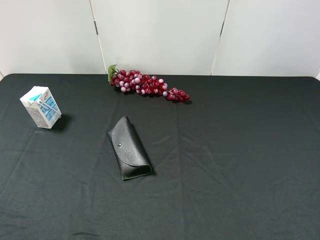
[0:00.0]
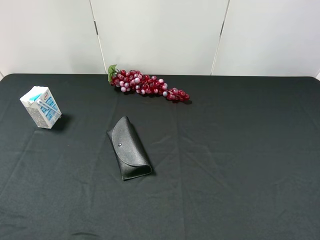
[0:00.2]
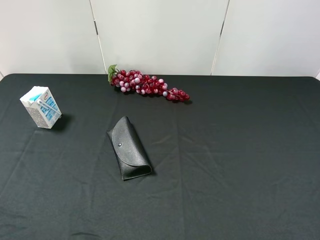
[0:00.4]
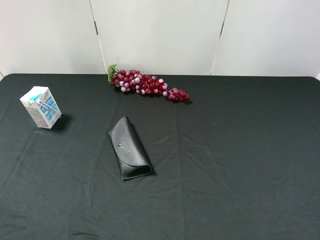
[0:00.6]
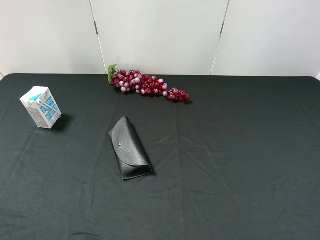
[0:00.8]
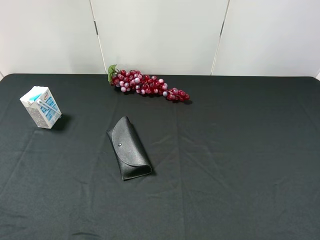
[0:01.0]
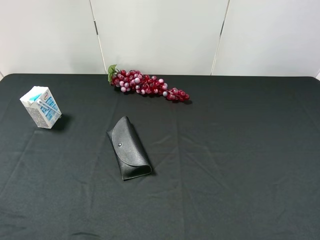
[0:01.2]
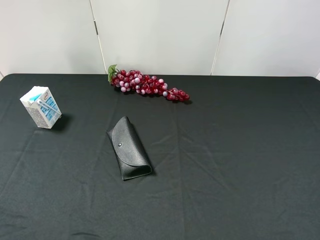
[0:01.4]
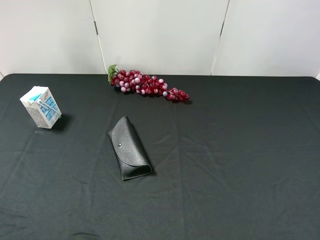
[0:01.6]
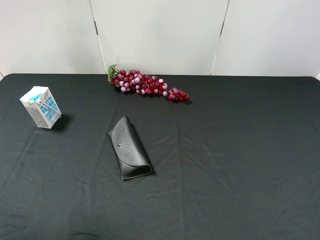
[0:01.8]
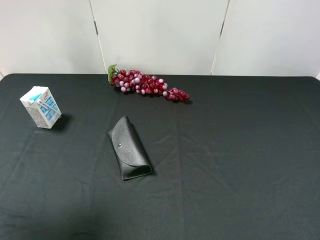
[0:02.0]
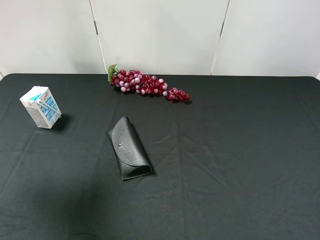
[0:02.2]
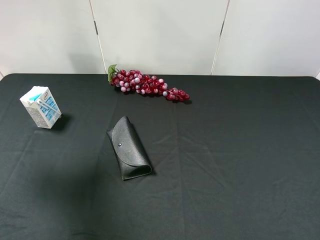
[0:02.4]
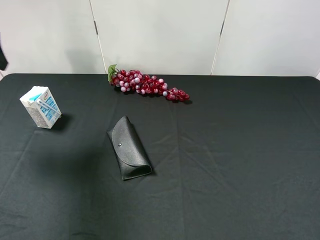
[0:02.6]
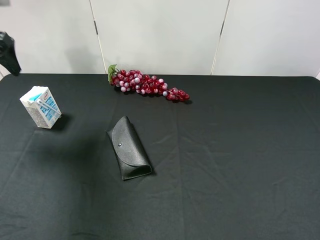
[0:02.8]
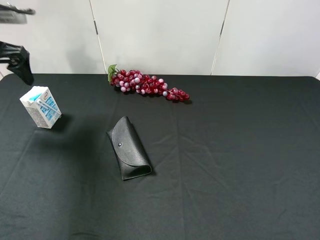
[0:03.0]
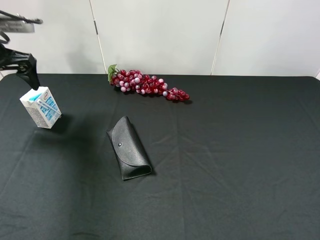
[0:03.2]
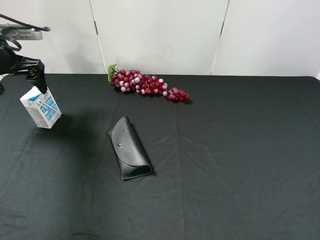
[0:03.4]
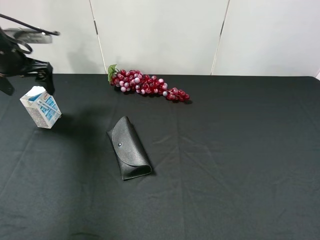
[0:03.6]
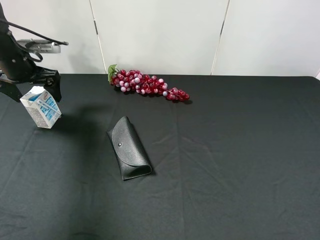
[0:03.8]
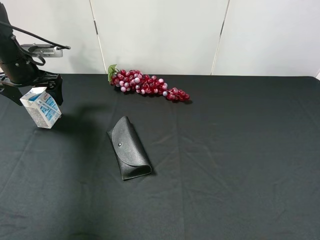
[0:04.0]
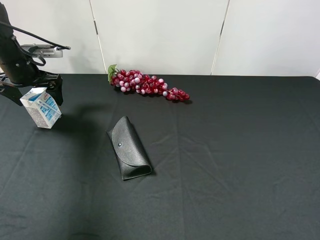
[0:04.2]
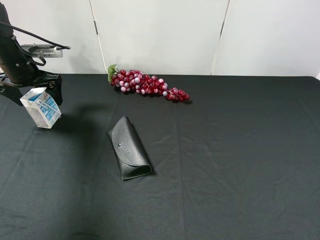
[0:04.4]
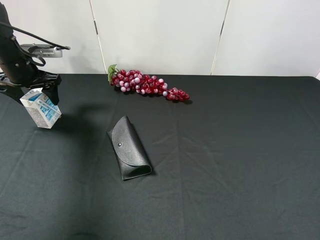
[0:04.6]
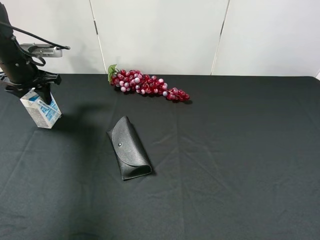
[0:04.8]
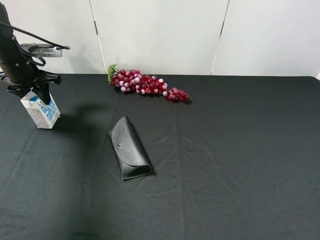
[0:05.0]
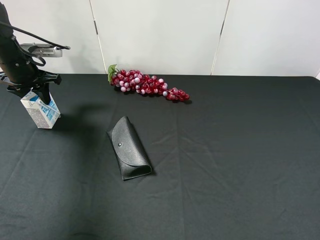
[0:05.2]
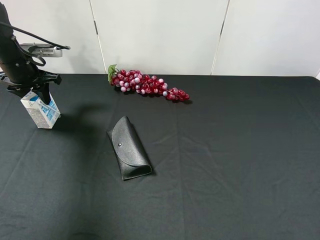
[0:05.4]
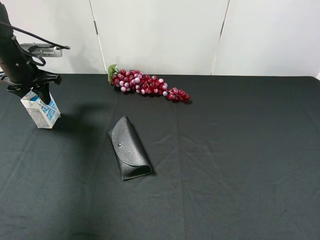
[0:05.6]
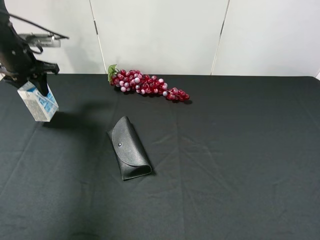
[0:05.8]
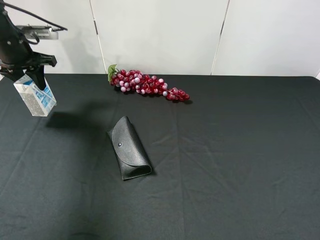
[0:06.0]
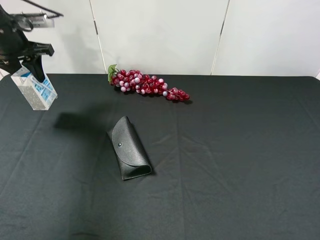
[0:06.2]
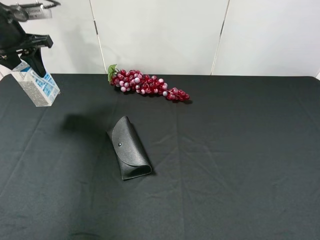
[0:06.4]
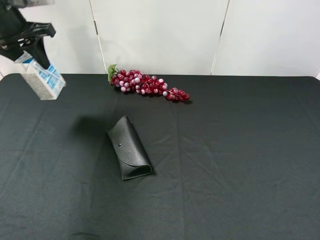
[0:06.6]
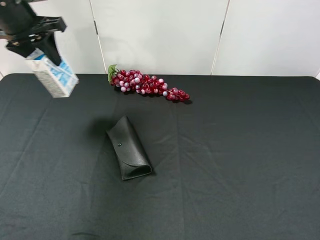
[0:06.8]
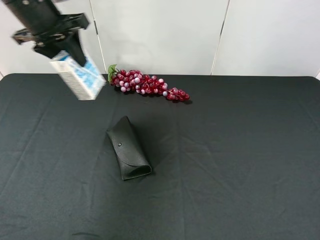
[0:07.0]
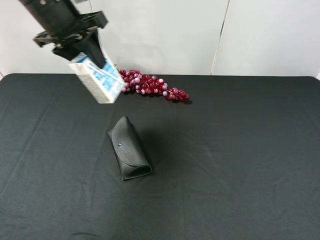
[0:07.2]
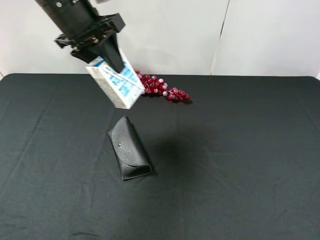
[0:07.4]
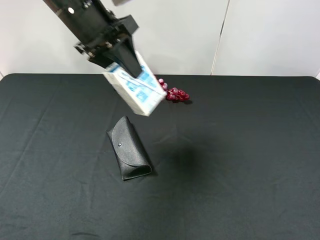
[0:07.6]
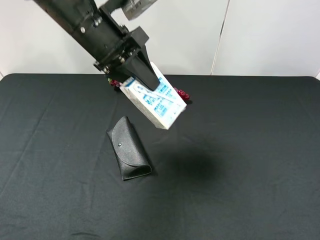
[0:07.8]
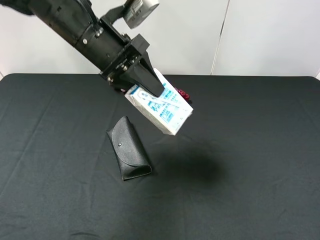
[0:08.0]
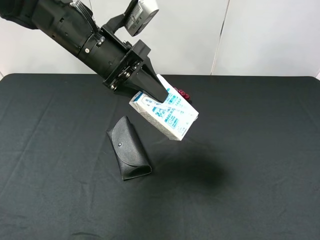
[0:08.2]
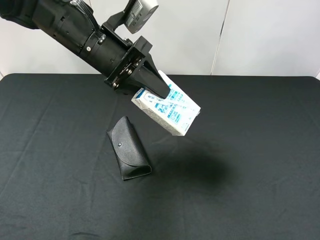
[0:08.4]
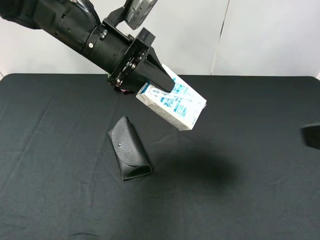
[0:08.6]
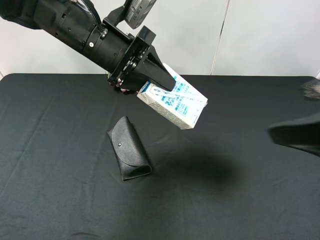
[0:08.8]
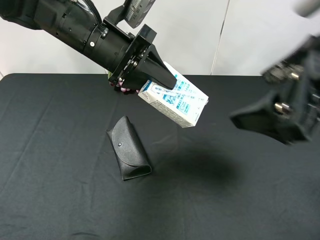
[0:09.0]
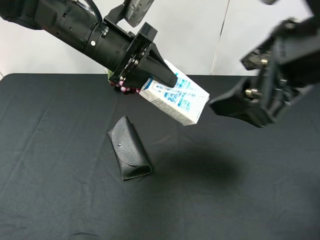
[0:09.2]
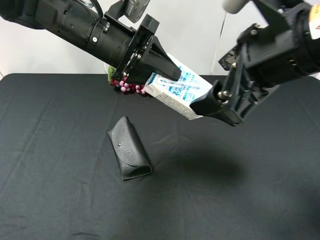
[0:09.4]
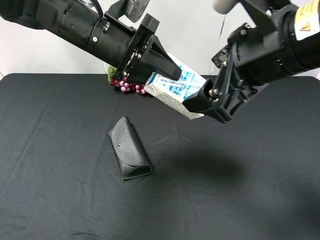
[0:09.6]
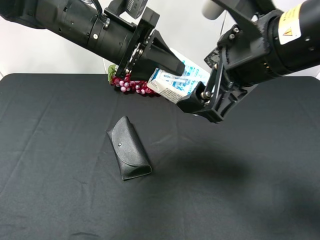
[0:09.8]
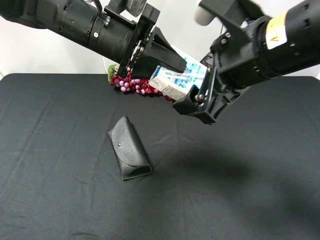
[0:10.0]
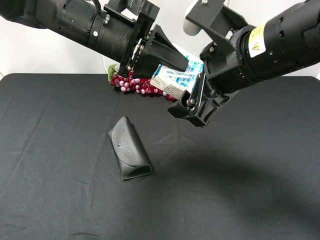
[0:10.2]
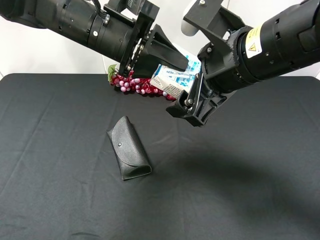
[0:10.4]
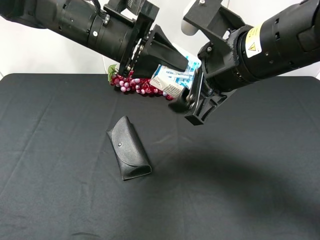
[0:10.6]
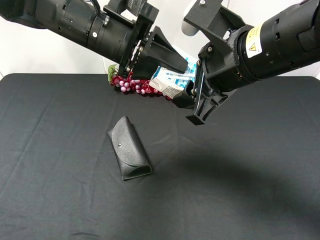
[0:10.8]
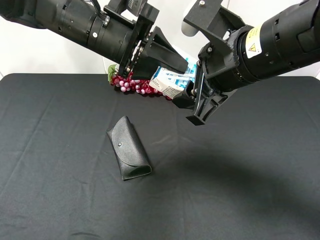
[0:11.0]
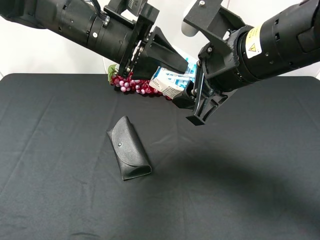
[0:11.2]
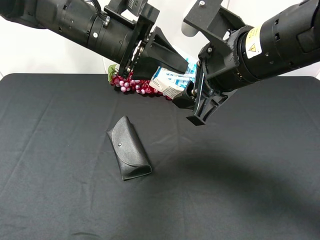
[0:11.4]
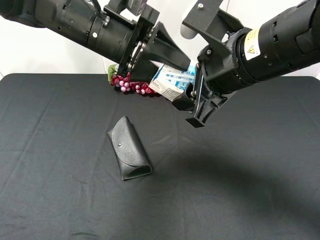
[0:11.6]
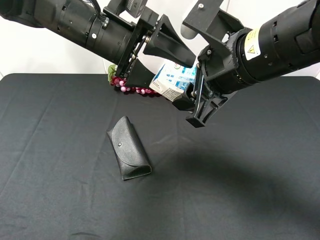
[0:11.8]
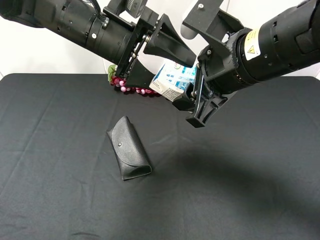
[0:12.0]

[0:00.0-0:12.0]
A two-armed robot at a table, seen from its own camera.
Task of the whole recording: use the left gripper to pick up the item and transfer it from the left gripper to the right gripper.
0:01.6 to 0:03.0: The left gripper heads forward, covering some 30 cm.
0:03.0 to 0:04.4: The left gripper goes about 10 cm downward and forward.
0:04.4 to 0:06.0: The left gripper closes up.
0:06.0 to 0:07.6: The left gripper shifts roughly 20 cm to the right and backward.
0:07.6 to 0:09.0: The right gripper moves forward and to the left, approximately 20 cm. The left gripper changes place by some 5 cm.
0:09.0 to 0:10.4: The right gripper shifts approximately 10 cm to the left and forward.
0:10.4 to 0:12.0: The right gripper closes. The left gripper opens its fingers.

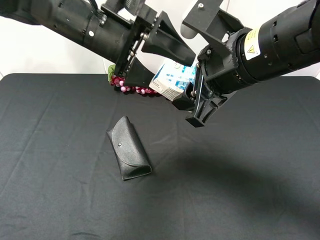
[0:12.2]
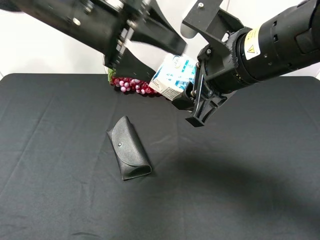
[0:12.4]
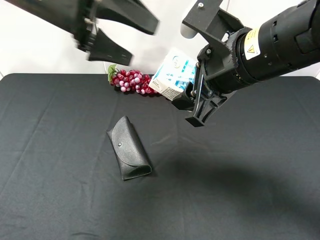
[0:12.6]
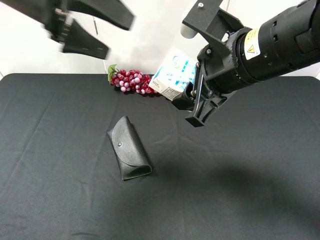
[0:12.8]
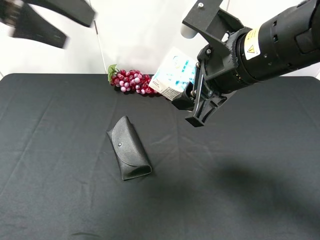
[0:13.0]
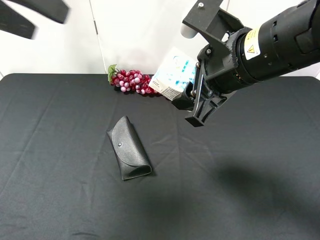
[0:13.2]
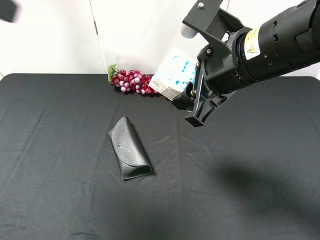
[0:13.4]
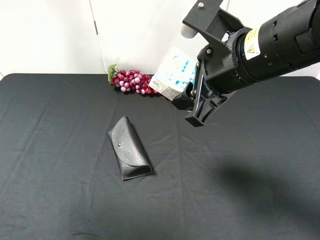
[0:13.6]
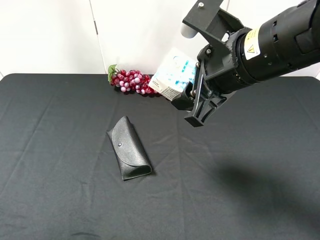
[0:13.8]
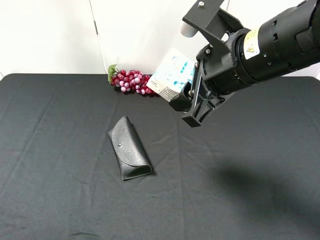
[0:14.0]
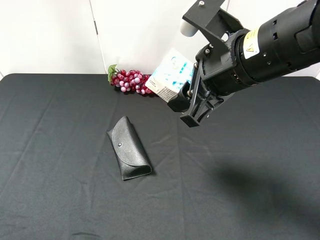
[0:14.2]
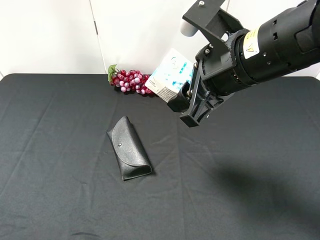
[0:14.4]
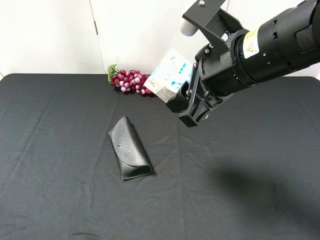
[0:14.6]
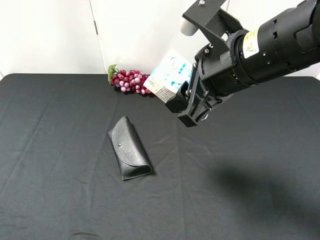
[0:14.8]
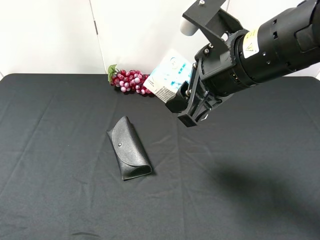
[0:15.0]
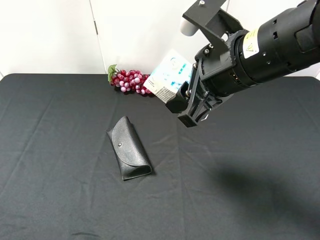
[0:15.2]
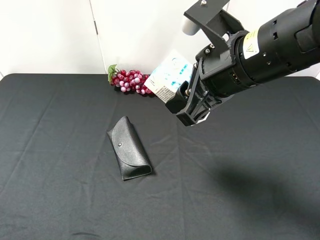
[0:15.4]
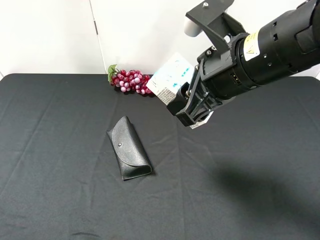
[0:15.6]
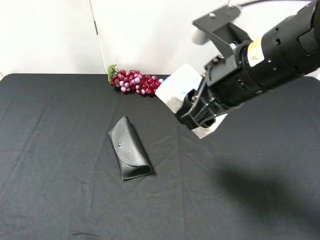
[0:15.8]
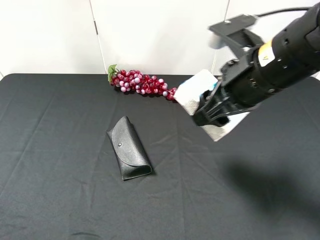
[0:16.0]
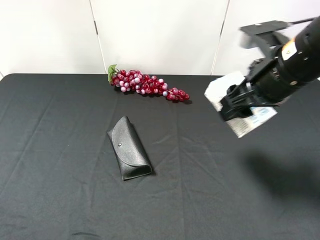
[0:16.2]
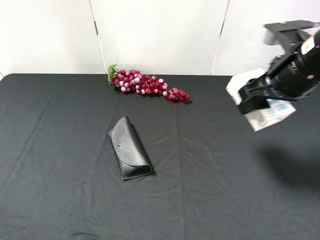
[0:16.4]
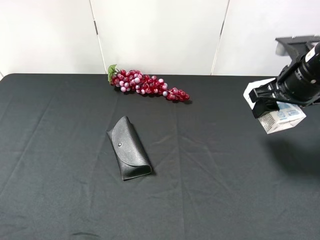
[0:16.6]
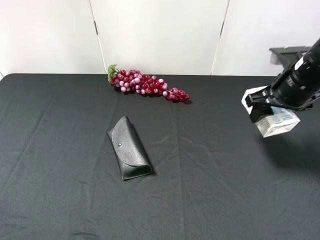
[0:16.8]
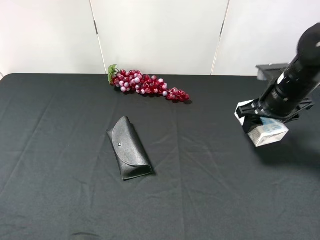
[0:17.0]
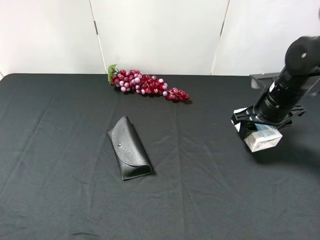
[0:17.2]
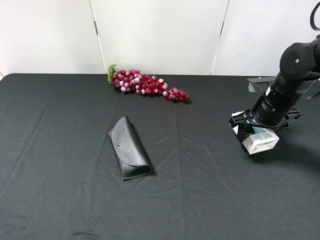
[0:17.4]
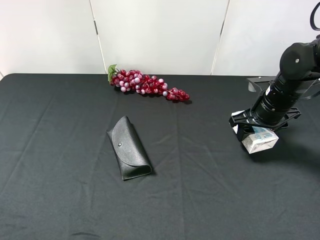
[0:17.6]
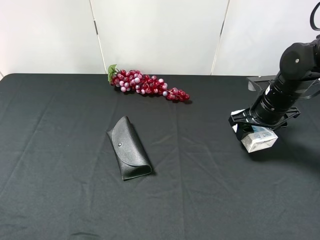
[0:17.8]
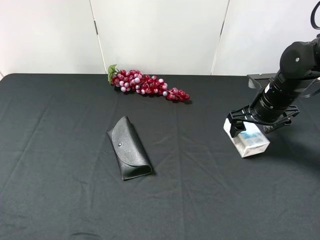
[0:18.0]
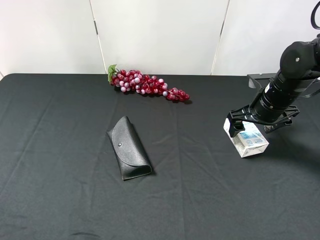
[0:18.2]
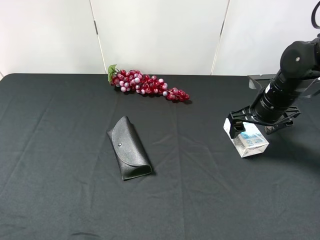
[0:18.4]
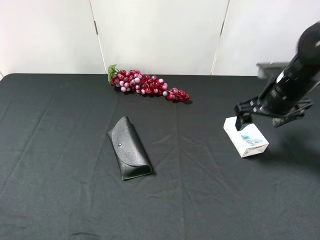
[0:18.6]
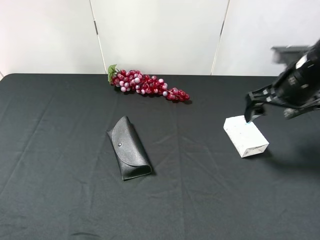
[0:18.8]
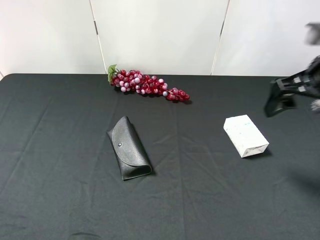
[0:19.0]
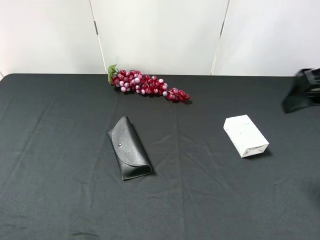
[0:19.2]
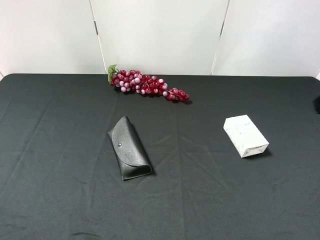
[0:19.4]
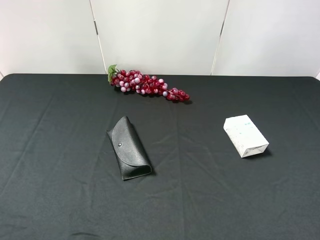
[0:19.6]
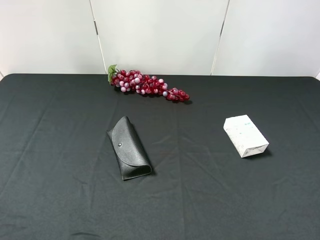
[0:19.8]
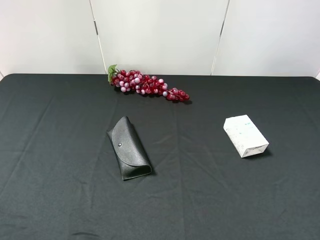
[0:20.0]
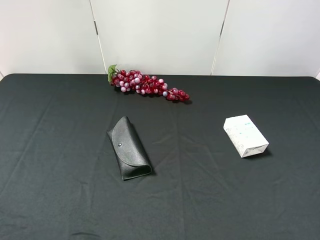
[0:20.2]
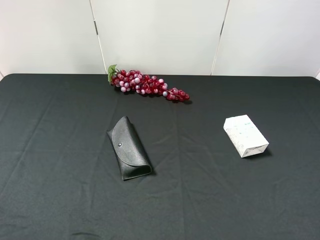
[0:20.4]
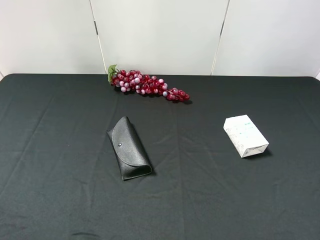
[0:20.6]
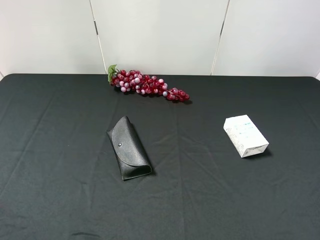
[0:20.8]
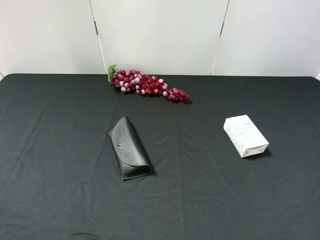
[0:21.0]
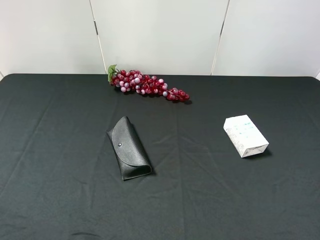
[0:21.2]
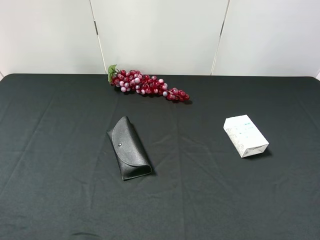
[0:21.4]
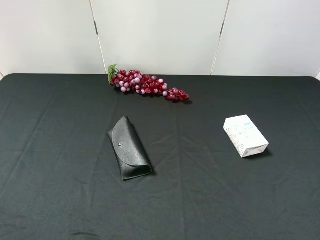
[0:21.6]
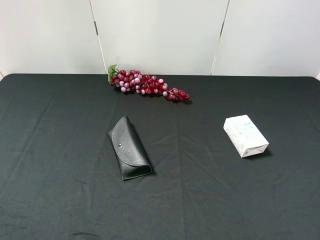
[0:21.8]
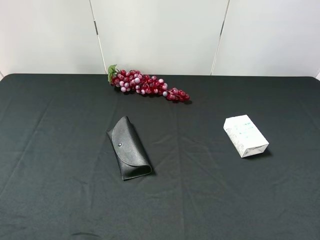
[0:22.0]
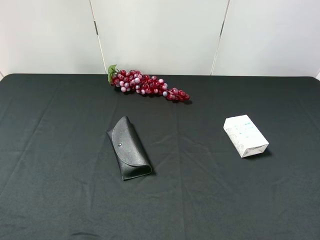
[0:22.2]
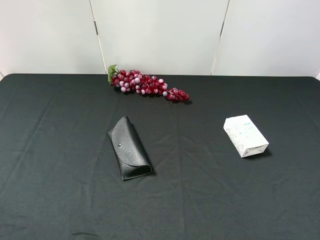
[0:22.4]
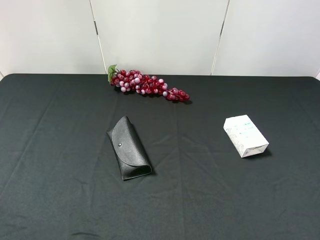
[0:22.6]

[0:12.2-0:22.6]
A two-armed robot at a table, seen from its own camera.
Task of the whole recording: use the left gripper to pick up the item and transfer it from the left gripper to the right gripper.
0:12.2 to 0:13.6: The left gripper goes some 30 cm to the left, upward and backward.
0:13.6 to 0:15.2: The left gripper travels downward and backward by about 20 cm.
0:15.2 to 0:16.6: The right gripper is displaced to the right and forward by about 15 cm.
0:16.6 to 0:18.2: The right gripper moves downward, approximately 10 cm, and opens up.
0:18.2 to 0:19.6: The right gripper is displaced backward and upward by roughly 30 cm.
